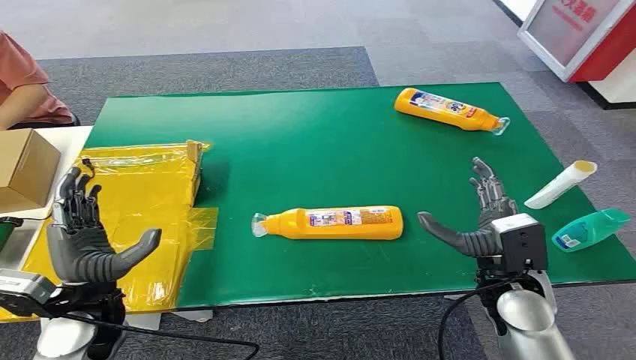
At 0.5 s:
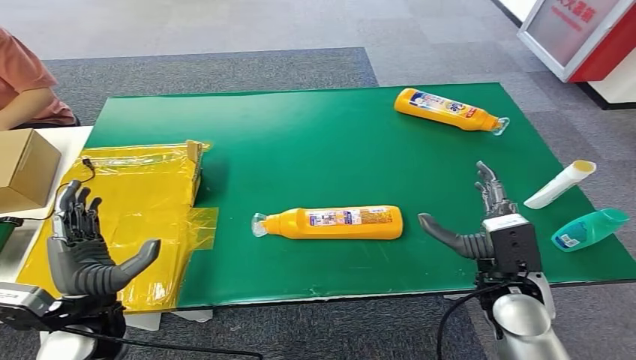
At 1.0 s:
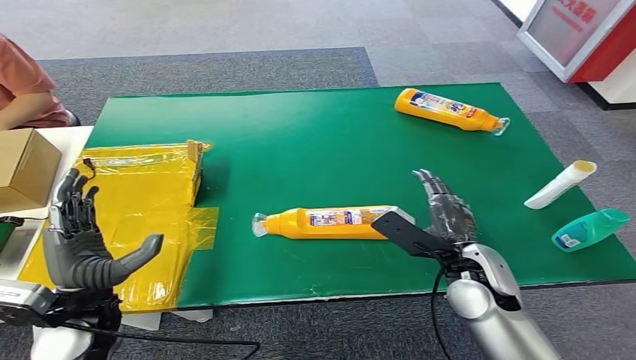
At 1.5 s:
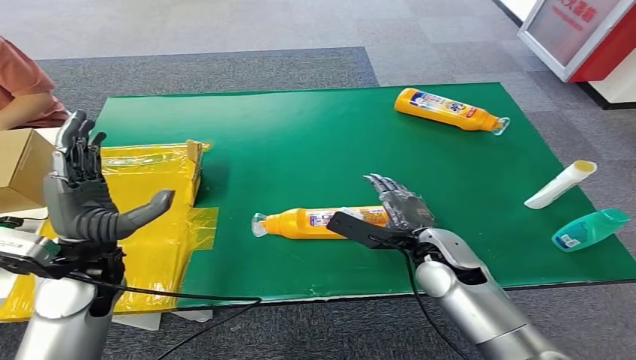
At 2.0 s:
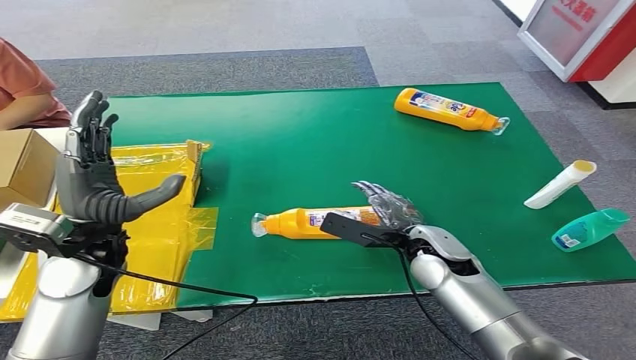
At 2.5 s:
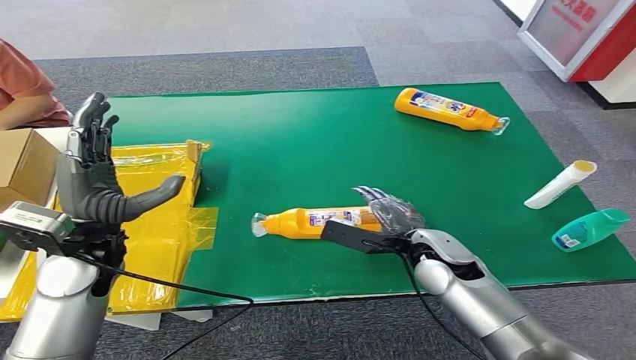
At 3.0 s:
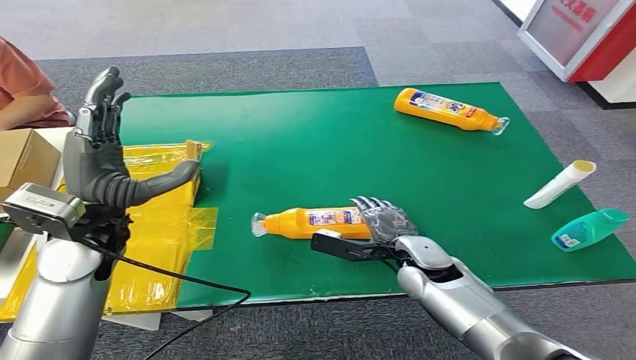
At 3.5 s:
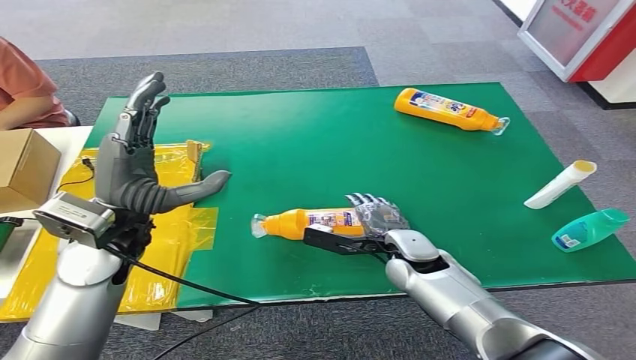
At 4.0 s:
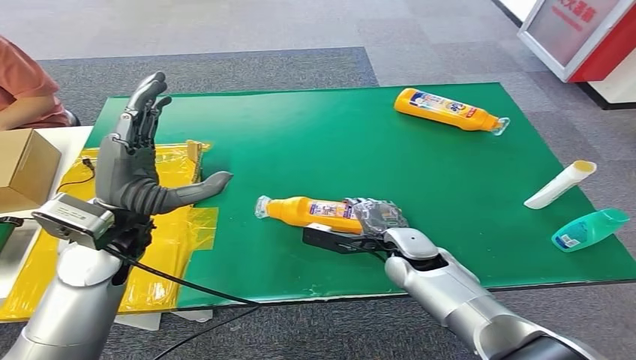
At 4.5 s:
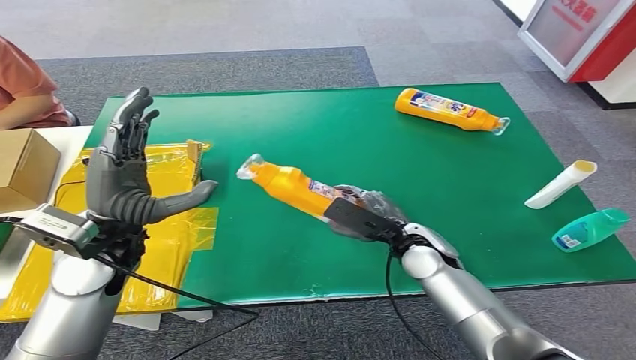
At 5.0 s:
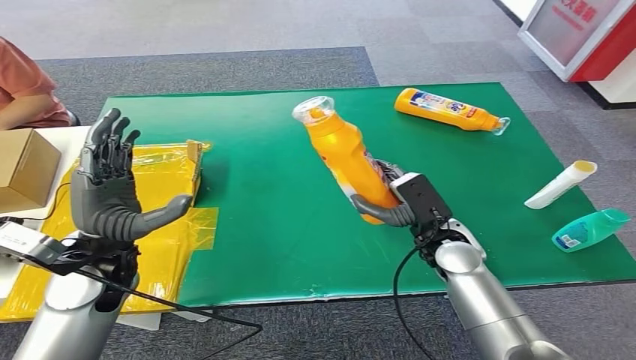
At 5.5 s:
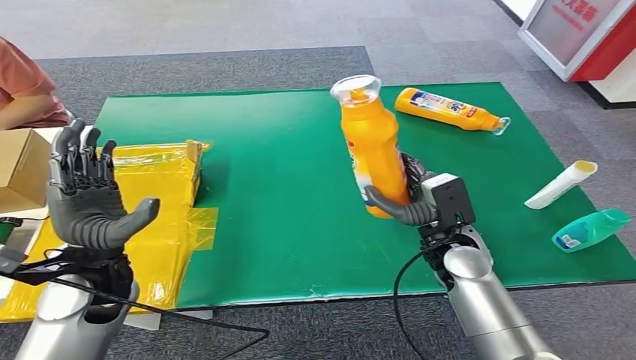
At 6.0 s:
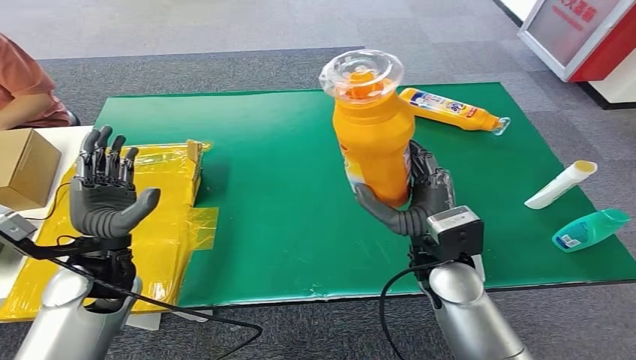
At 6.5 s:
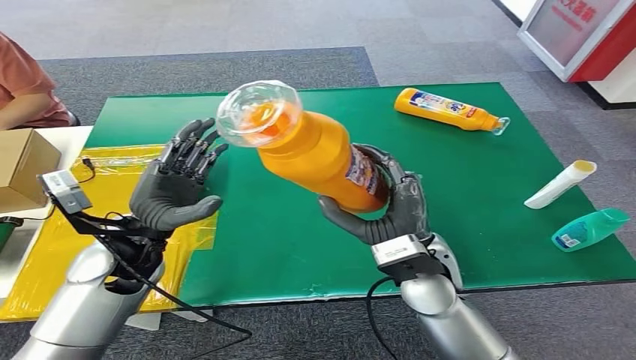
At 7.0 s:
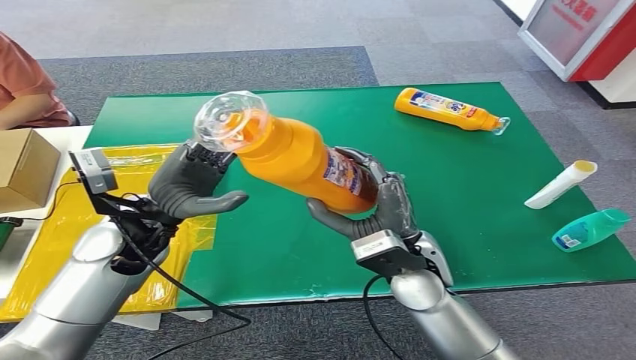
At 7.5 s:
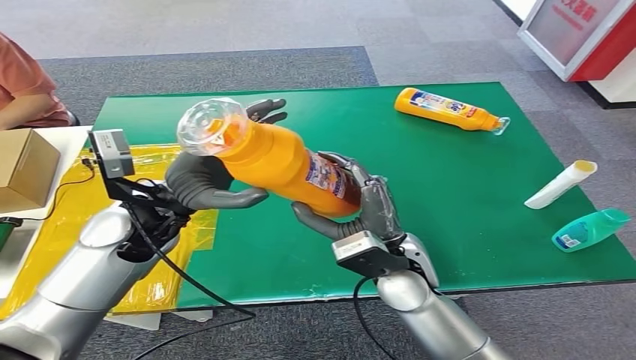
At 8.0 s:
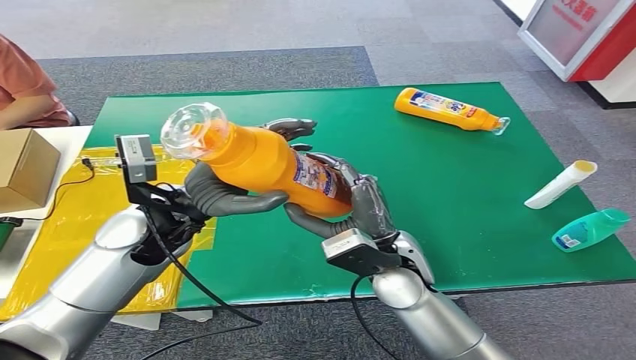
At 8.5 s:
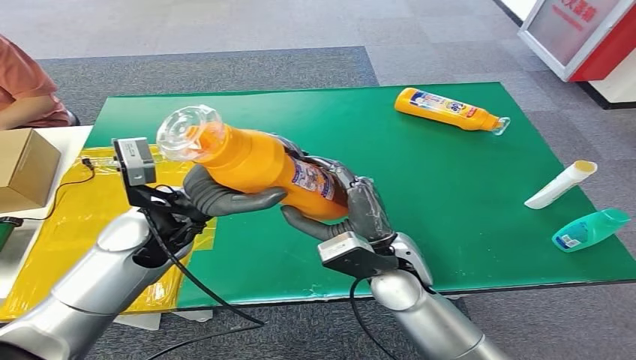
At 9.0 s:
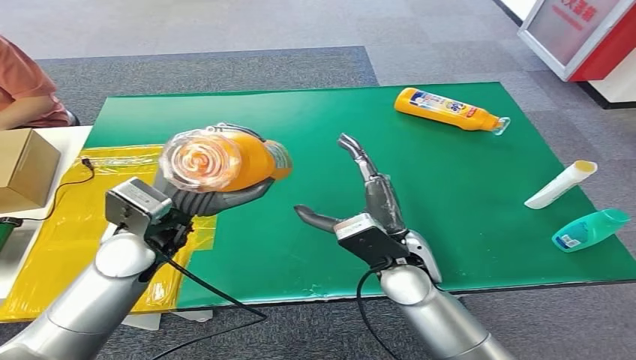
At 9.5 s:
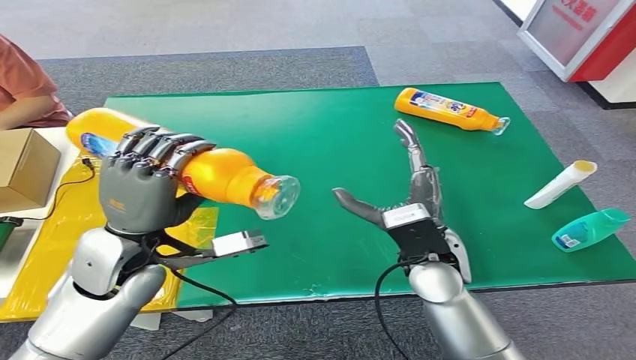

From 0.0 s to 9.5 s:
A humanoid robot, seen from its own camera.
Step, from 0.0 s to 4.5 s: Pick up the bottle from the table.

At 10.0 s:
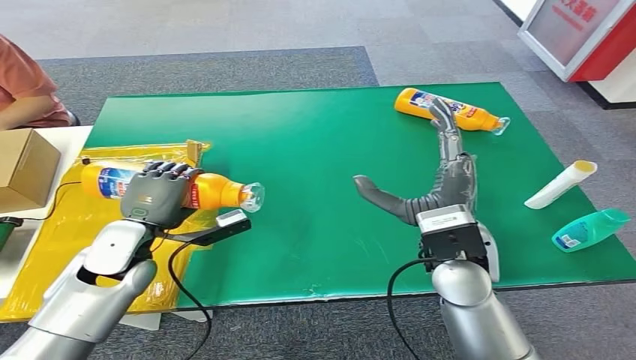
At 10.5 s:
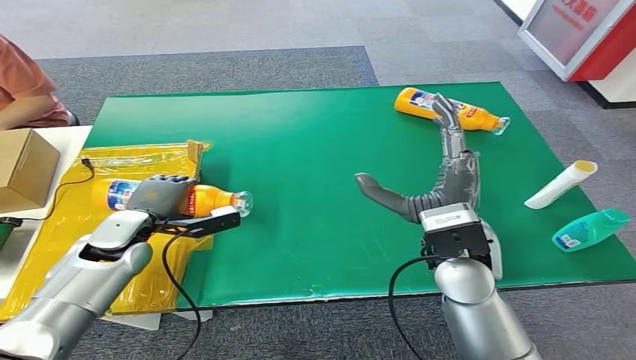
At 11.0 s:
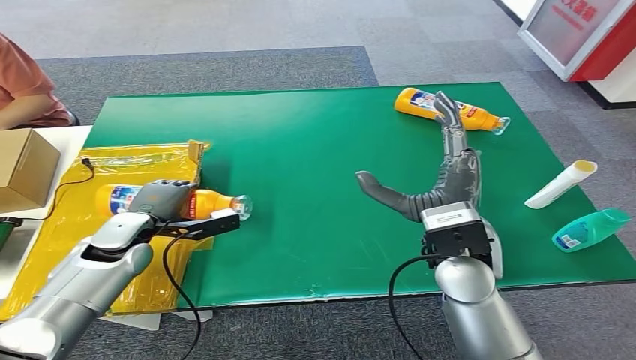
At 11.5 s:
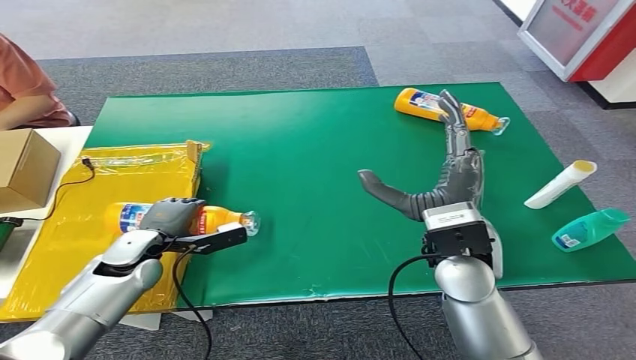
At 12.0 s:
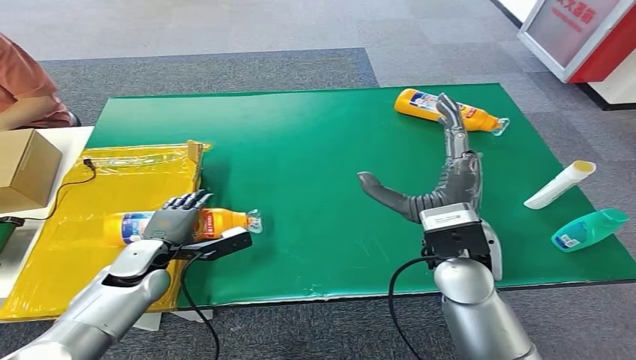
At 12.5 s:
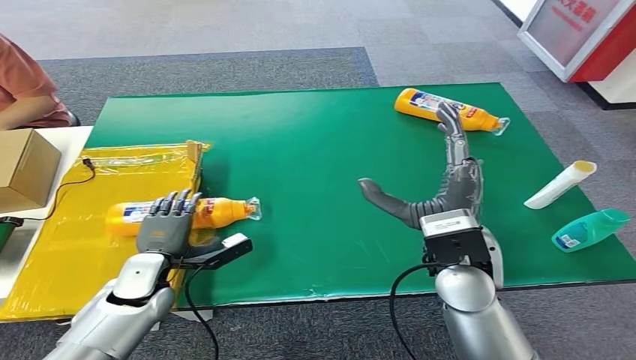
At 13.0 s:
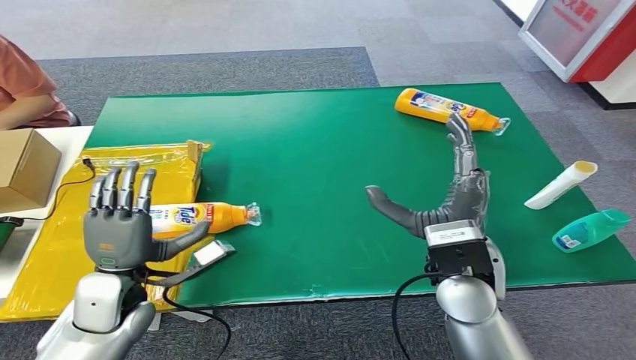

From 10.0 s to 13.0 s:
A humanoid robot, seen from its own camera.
Step, from 10.0 s to 13.0 s: Turn the bottle to the front side.
From 10.0 s to 11.5 s: The left hand heads downward, covering roughly 10 cm.
From 11.5 s to 13.0 s: The left hand travels backward by roughly 10 cm.
